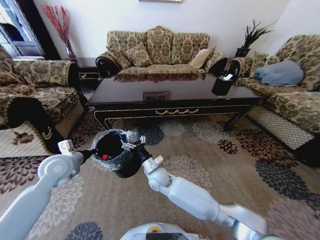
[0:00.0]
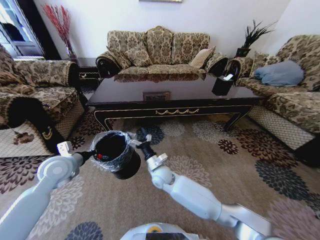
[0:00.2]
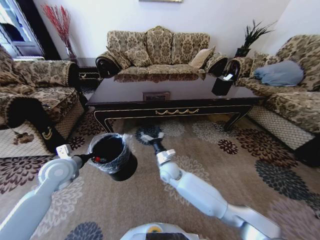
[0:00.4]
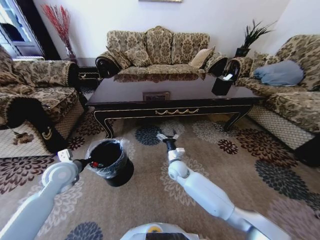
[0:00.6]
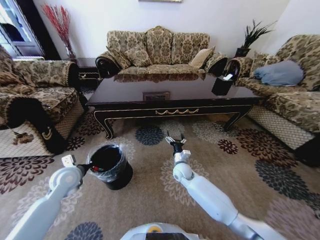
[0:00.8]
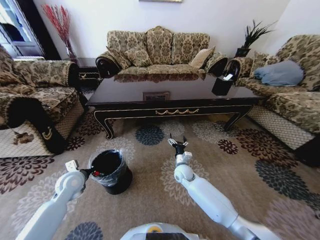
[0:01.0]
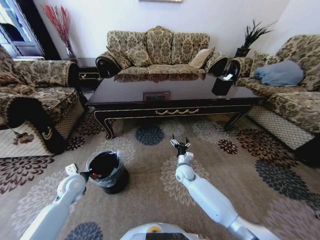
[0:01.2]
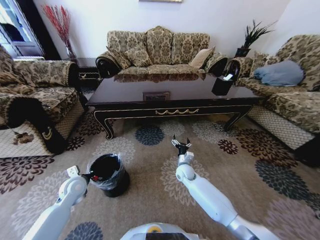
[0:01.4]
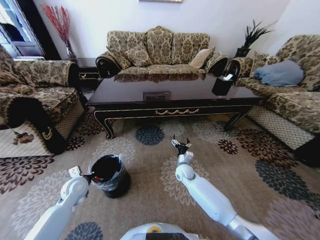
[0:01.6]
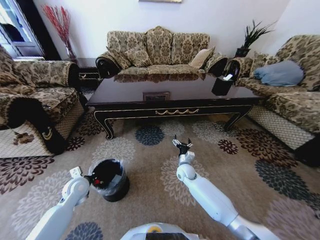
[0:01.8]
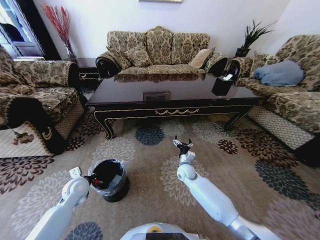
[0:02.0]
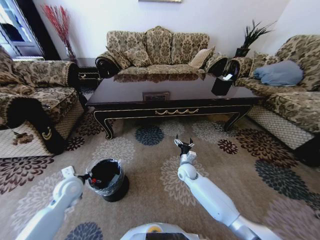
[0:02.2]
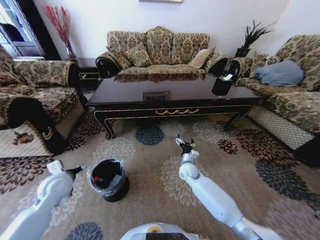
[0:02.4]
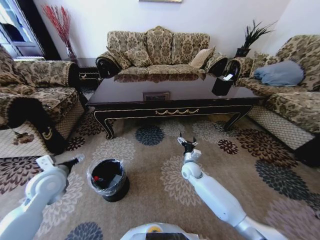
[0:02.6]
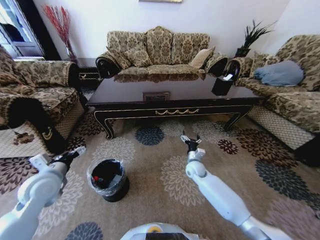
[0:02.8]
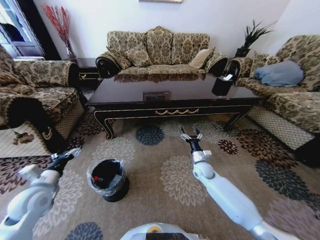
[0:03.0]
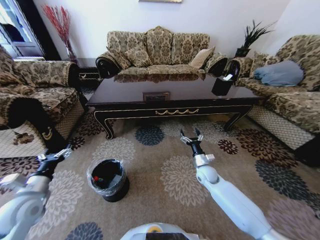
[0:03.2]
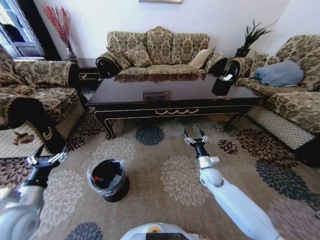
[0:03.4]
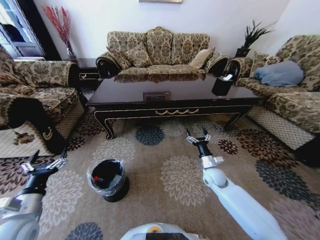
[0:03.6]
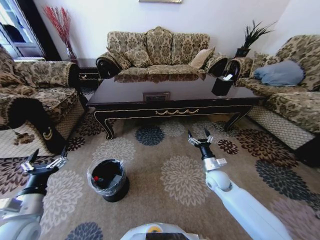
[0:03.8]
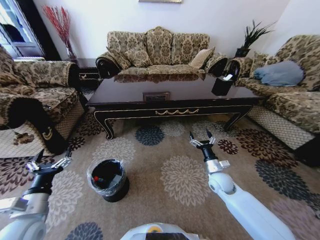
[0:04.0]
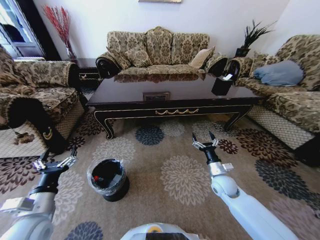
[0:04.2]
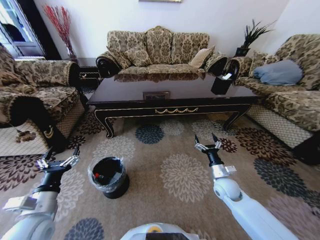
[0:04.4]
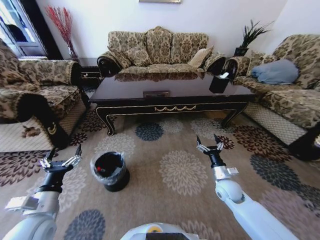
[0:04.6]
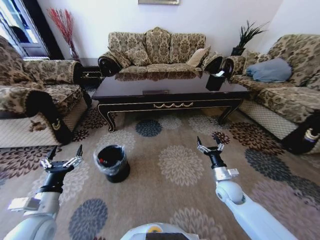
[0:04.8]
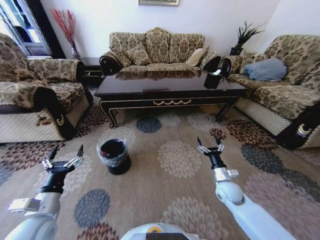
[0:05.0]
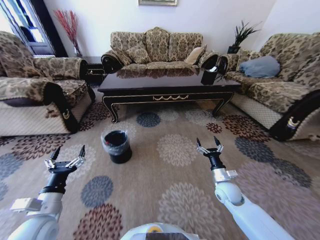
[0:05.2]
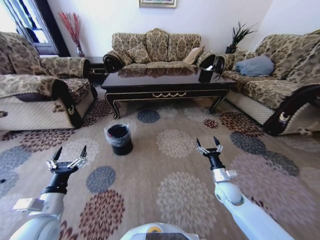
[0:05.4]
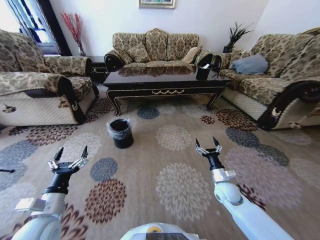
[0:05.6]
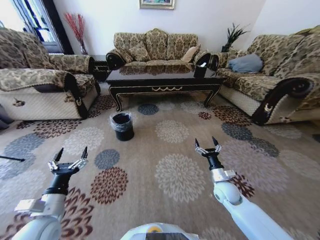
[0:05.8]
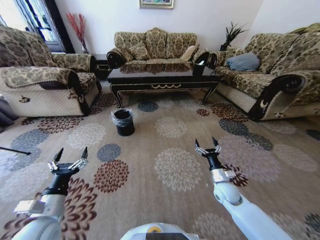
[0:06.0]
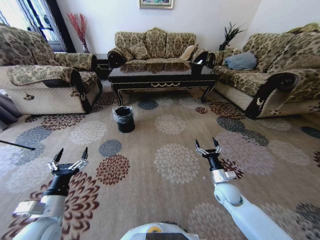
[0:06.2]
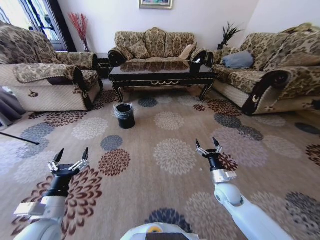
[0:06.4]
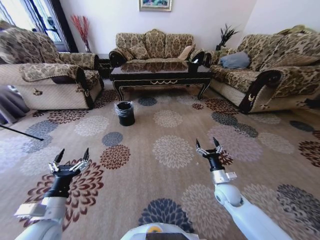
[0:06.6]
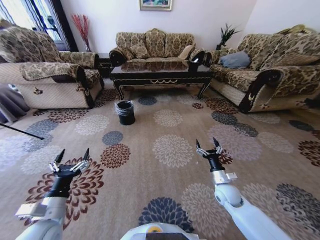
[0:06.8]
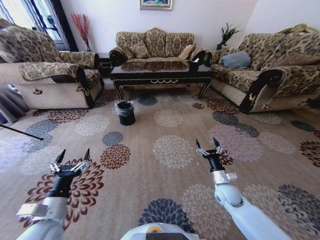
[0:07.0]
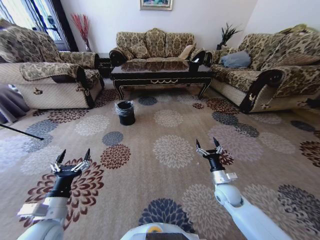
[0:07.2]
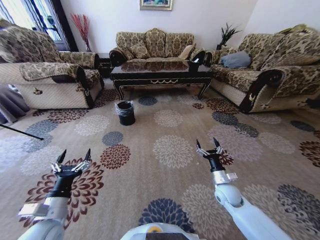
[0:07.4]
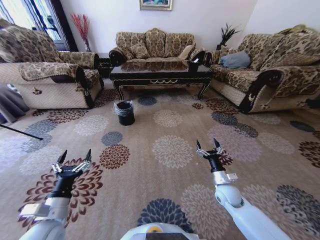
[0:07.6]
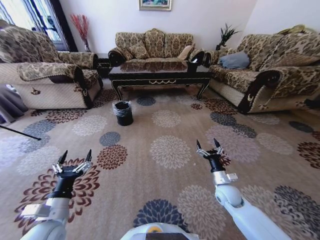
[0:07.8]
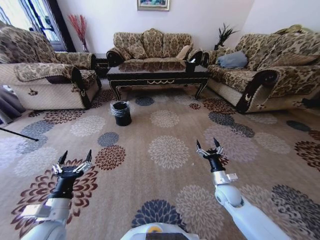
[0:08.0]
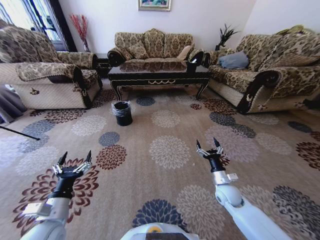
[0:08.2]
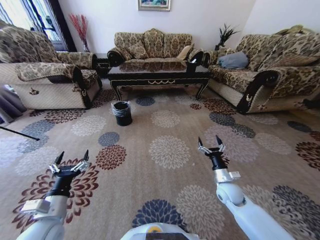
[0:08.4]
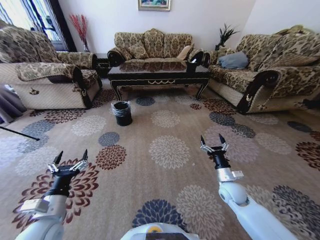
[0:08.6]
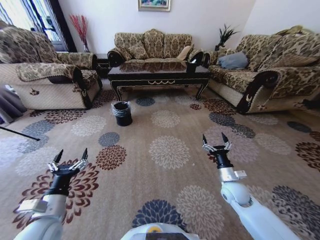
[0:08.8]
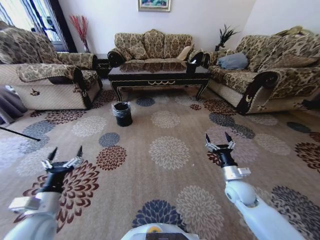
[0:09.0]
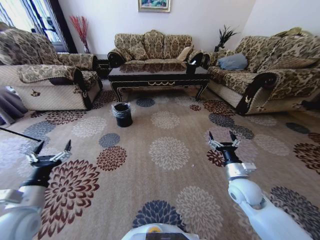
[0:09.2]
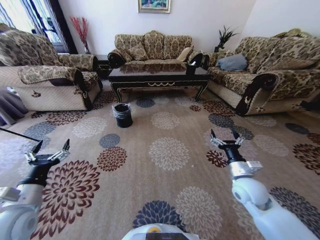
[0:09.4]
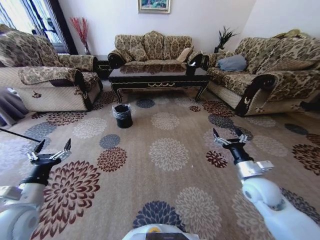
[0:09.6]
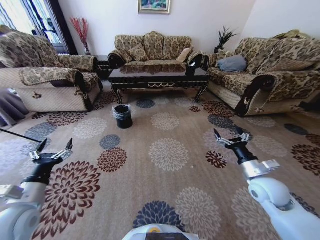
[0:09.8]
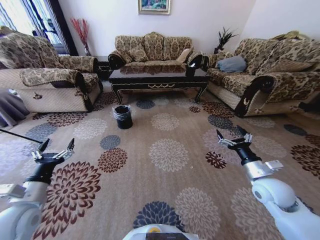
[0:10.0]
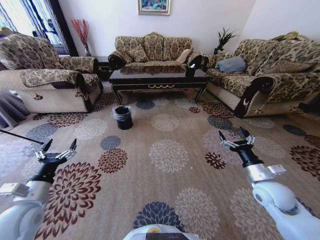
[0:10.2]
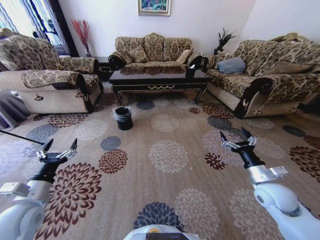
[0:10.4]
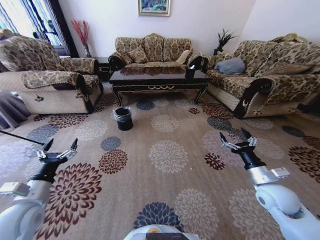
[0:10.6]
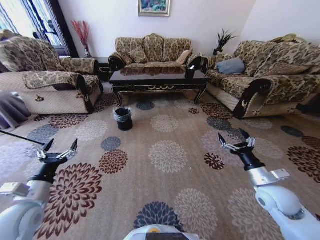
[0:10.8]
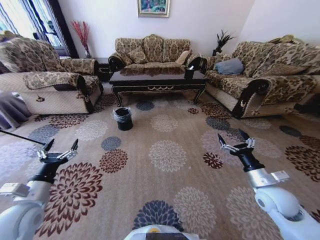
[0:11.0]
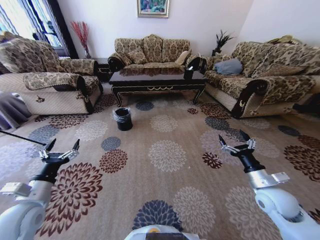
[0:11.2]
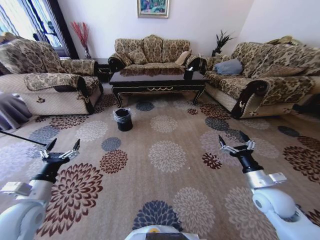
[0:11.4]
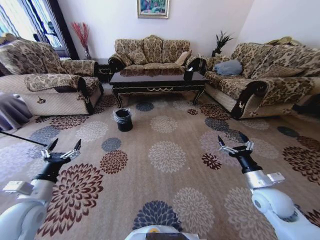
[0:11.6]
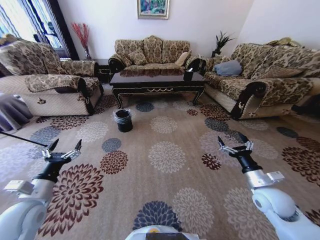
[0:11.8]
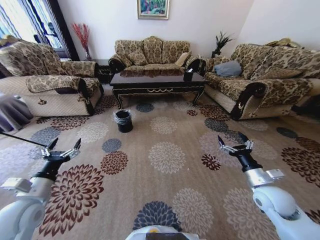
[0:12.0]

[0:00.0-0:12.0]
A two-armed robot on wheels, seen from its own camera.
Task of the whole recording: Move to the front of the table and pick up the trash from the floor, then place it into the trash bin.
0:00.0 to 0:01.6: The left gripper shifts roughly 15 cm downward. The right gripper shifts about 15 cm to the right, downward and forward.
0:01.6 to 0:03.0: The right gripper shifts approximately 10 cm to the right, while the left gripper is displaced upward, to the left and backward by approximately 10 cm, and opens up.
0:03.0 to 0:04.4: Both grippers move backward and to the right, roughly 10 cm.
0:07.6 to 0:09.0: The right gripper goes approximately 5 cm upward.
0:09.0 to 0:10.4: The left gripper moves about 5 cm, while the right gripper travels upward and to the right by roughly 10 cm.

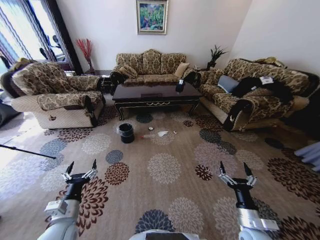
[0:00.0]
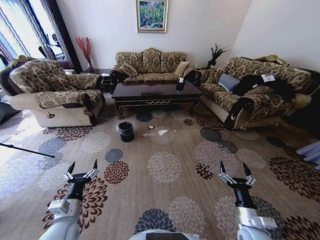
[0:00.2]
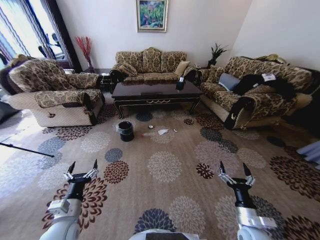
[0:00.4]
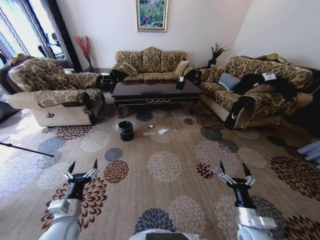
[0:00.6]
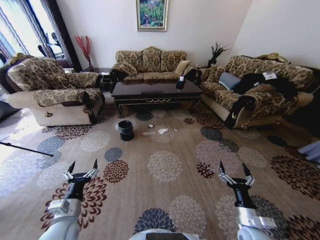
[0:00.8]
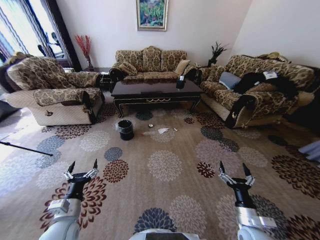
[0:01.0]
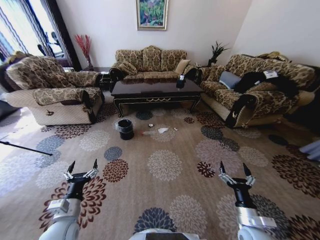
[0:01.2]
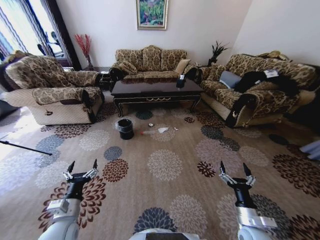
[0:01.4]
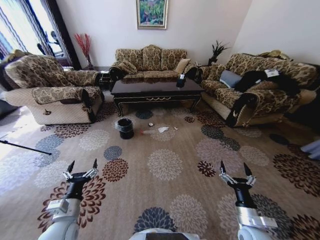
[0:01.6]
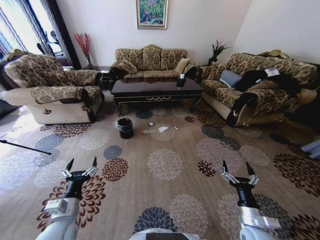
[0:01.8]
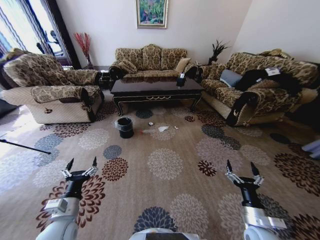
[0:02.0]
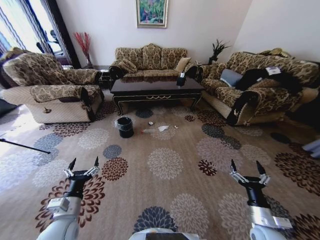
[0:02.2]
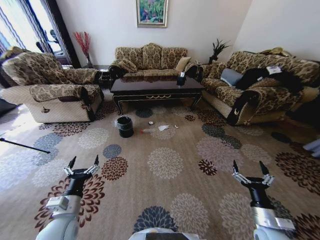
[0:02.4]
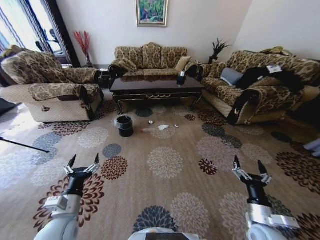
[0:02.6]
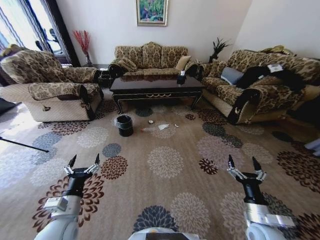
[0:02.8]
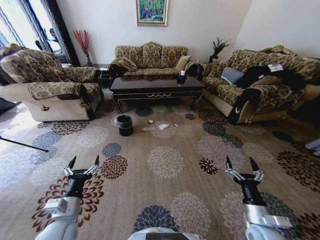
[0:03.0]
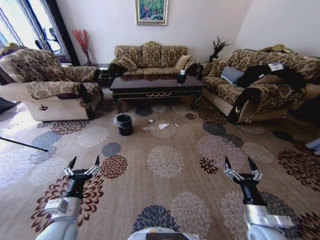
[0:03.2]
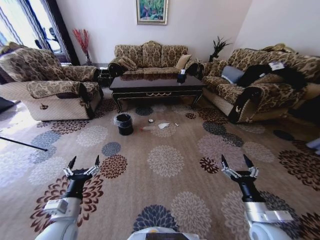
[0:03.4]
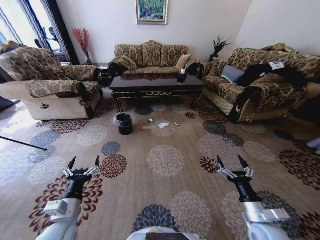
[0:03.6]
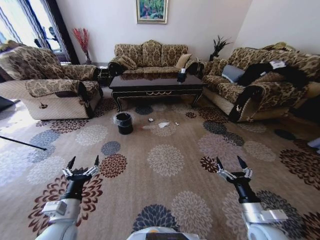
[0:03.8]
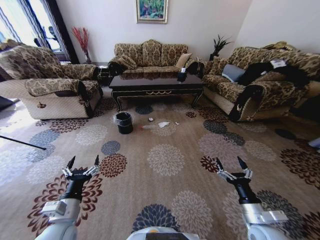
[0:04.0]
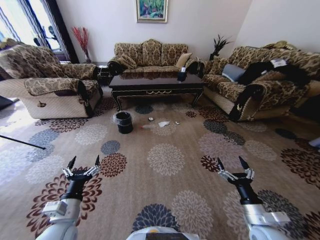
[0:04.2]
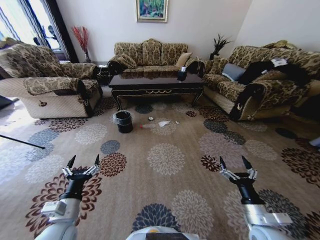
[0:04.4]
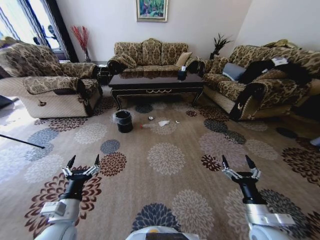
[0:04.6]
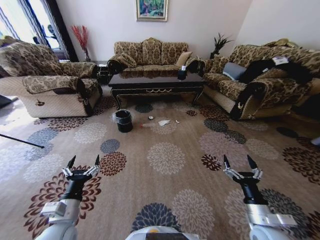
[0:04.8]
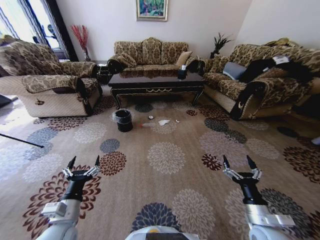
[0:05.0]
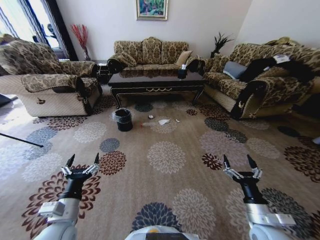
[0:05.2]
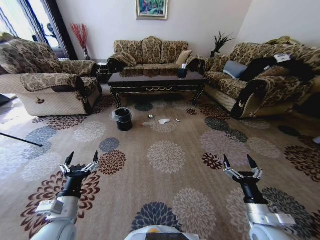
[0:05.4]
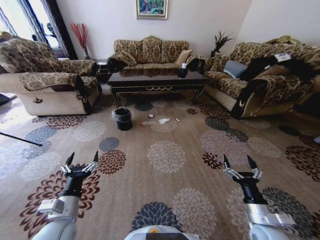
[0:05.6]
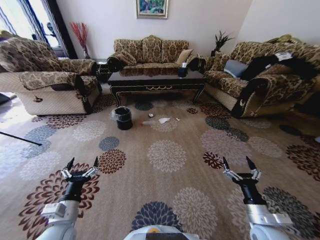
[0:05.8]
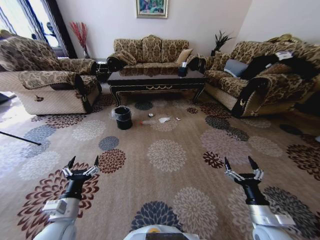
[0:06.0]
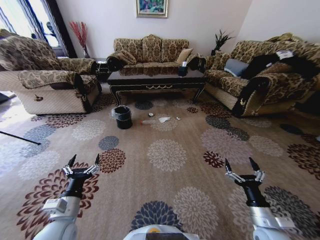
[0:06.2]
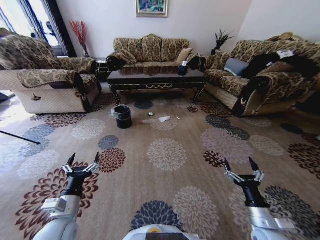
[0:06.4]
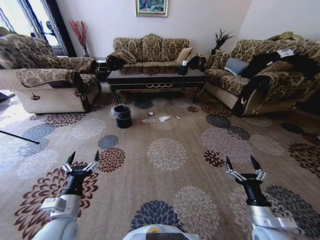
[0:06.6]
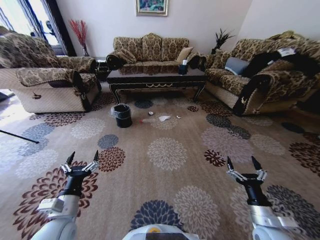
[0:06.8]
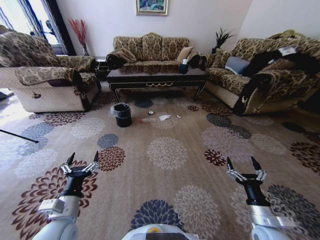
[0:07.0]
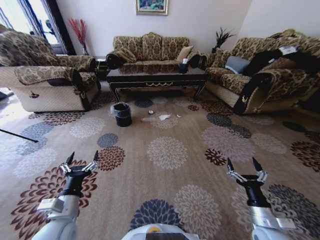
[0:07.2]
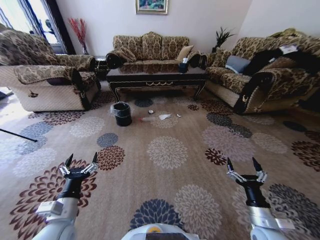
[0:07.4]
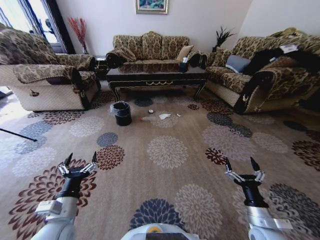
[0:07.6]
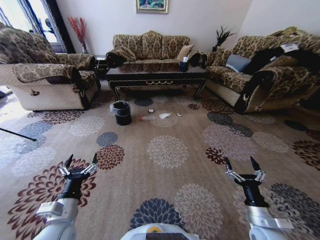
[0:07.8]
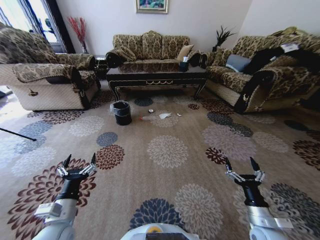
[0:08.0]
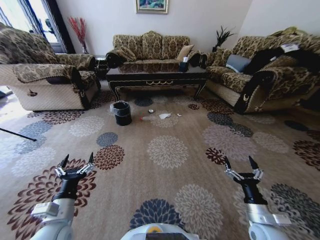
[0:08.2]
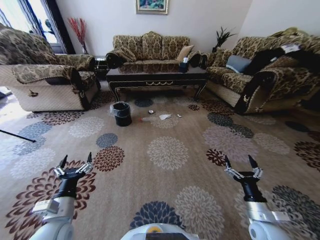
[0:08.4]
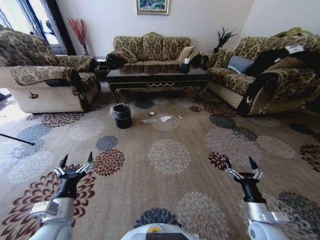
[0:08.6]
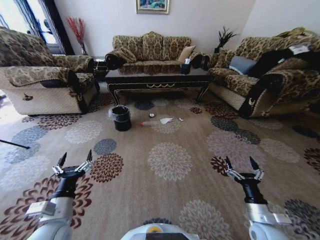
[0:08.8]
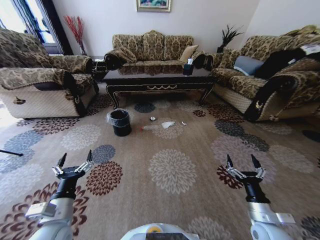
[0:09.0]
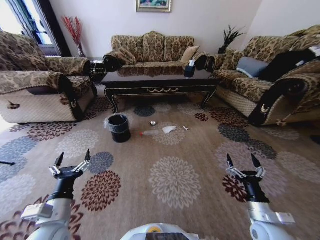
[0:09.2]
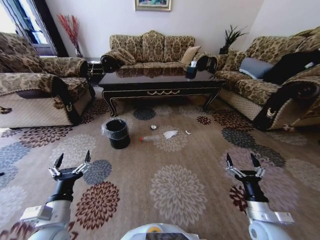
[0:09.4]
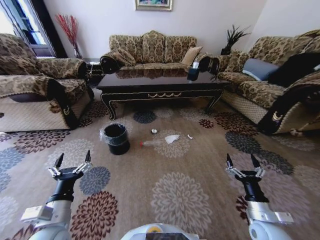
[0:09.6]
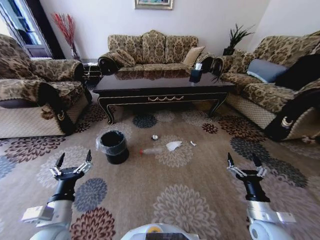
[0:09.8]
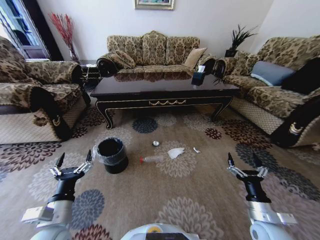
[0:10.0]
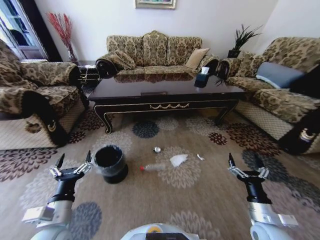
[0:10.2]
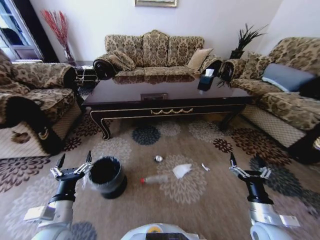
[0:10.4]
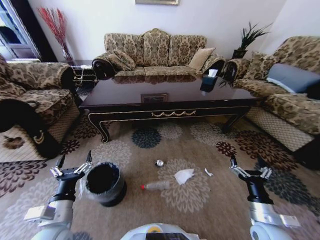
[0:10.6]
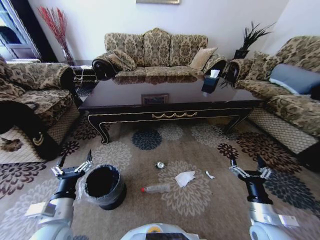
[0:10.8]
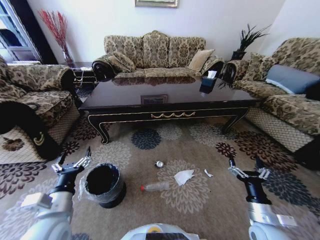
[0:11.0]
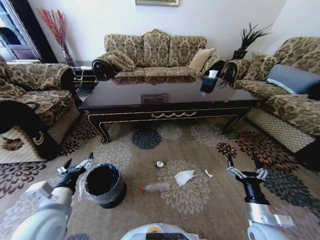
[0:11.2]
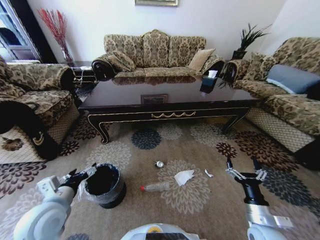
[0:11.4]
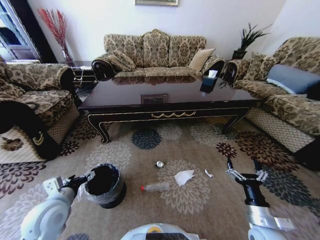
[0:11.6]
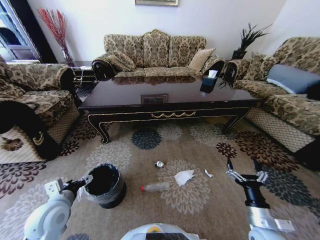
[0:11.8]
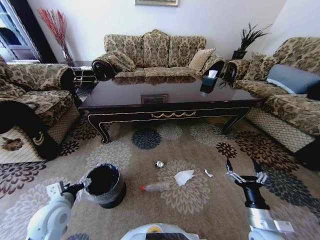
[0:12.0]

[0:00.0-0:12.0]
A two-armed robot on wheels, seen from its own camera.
Task of the whole recording: Move to the front of the table and pick up the trash from the floor, then place it into the trash bin.
0:10.4 to 0:12.0: The left gripper shifts some 10 cm forward and to the left.
